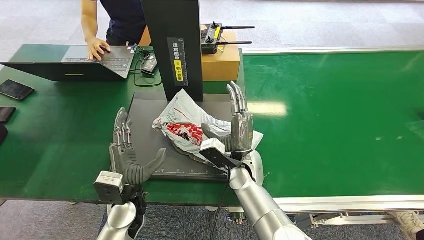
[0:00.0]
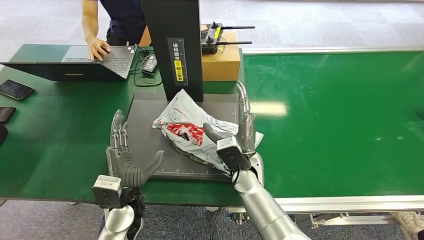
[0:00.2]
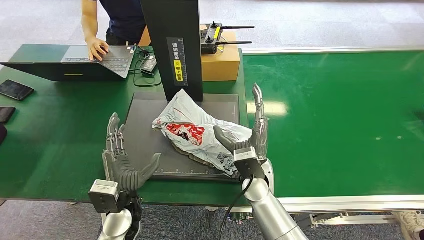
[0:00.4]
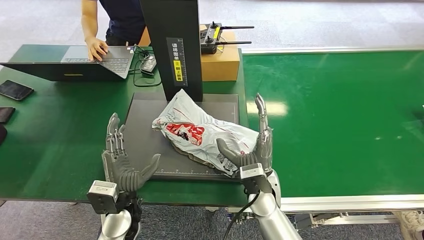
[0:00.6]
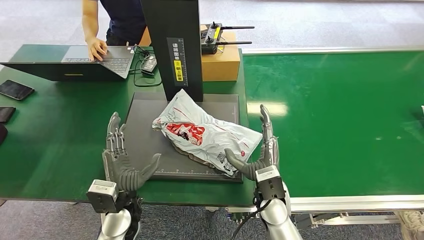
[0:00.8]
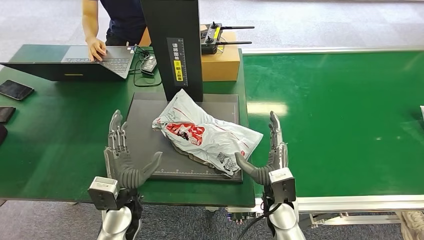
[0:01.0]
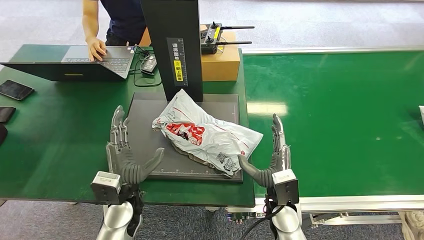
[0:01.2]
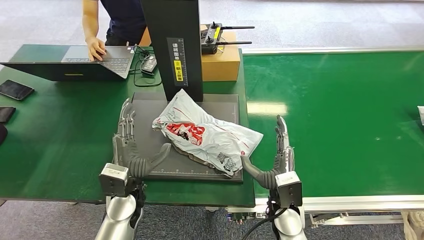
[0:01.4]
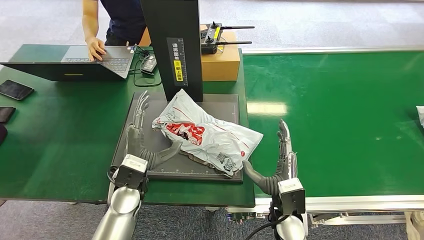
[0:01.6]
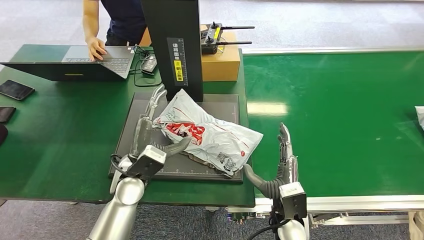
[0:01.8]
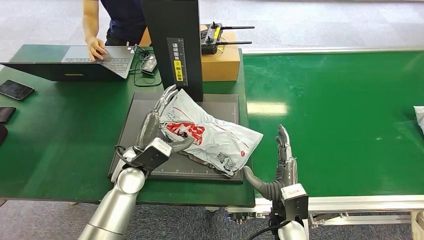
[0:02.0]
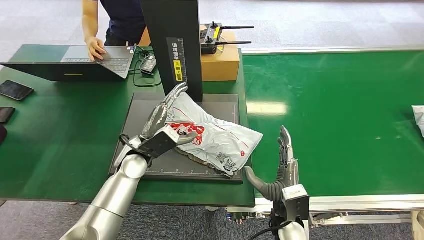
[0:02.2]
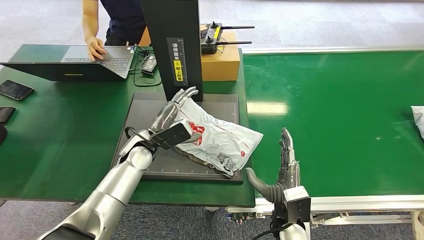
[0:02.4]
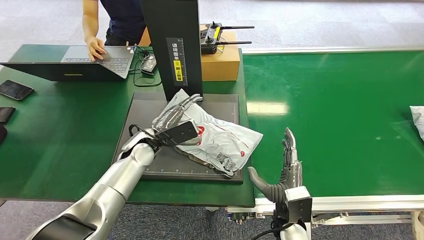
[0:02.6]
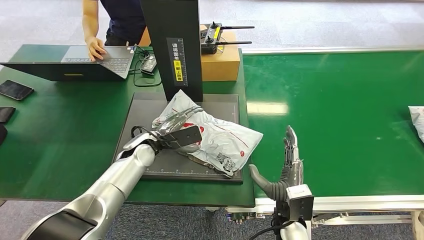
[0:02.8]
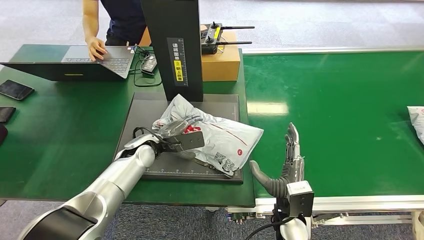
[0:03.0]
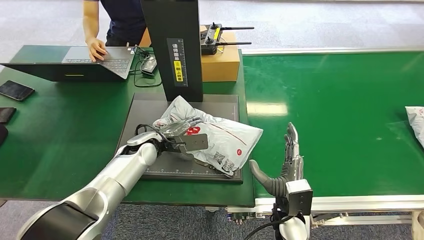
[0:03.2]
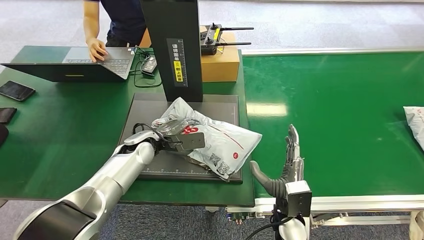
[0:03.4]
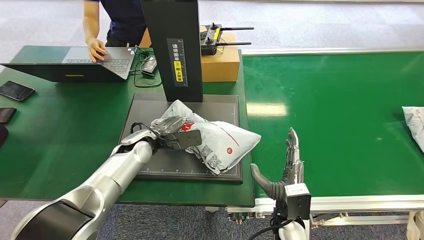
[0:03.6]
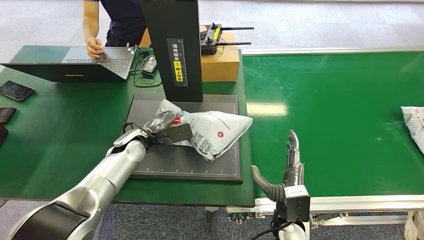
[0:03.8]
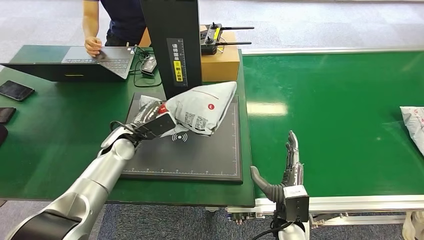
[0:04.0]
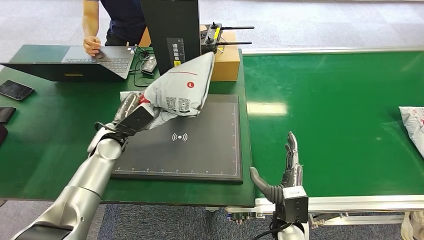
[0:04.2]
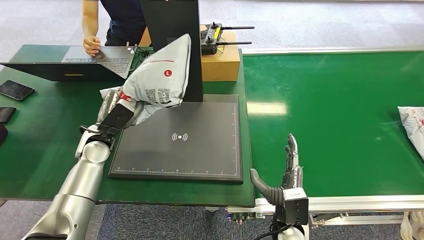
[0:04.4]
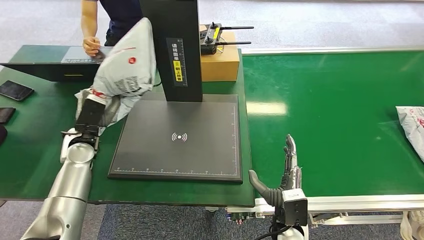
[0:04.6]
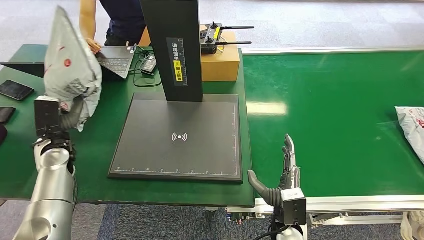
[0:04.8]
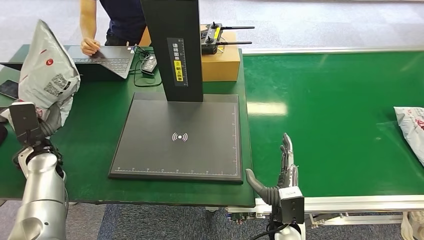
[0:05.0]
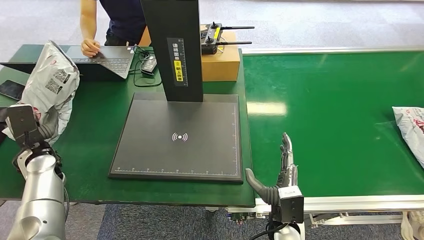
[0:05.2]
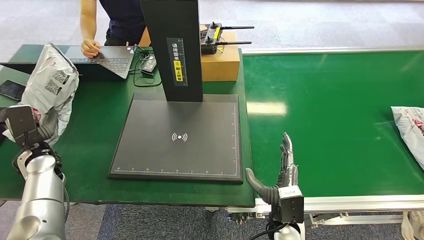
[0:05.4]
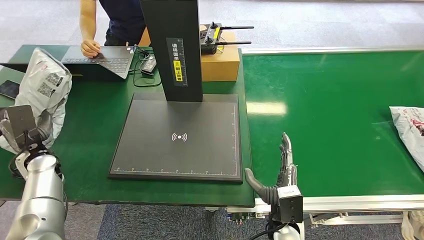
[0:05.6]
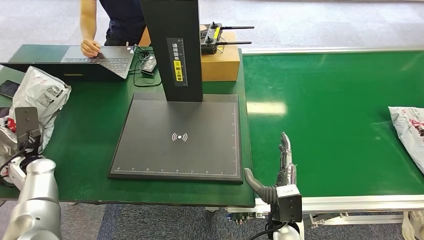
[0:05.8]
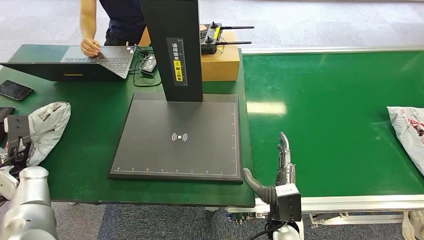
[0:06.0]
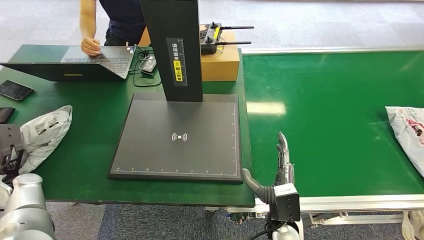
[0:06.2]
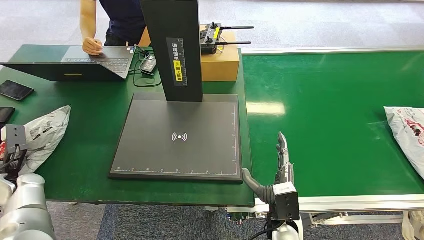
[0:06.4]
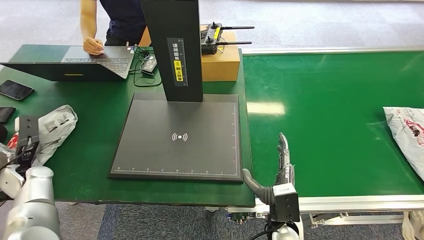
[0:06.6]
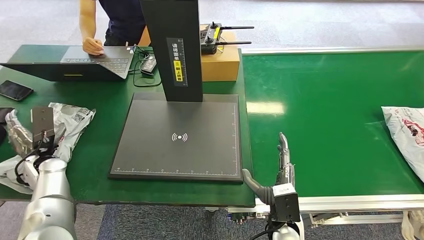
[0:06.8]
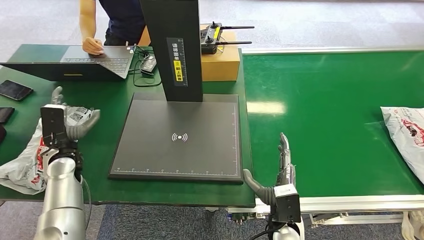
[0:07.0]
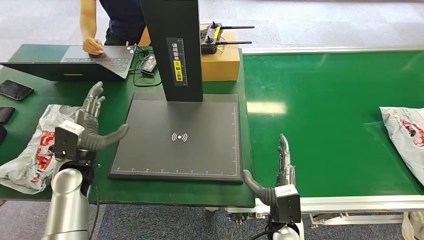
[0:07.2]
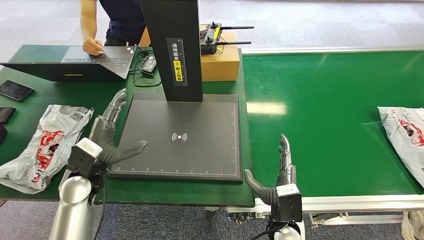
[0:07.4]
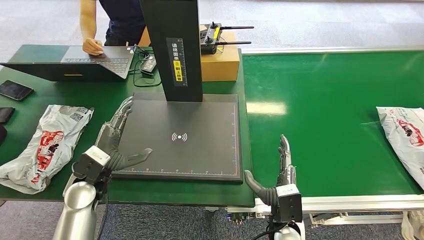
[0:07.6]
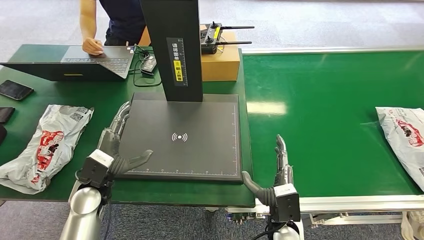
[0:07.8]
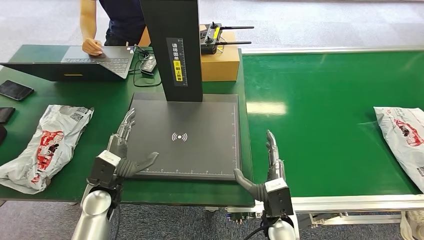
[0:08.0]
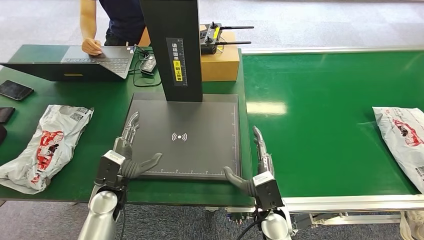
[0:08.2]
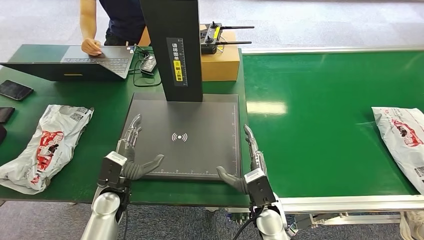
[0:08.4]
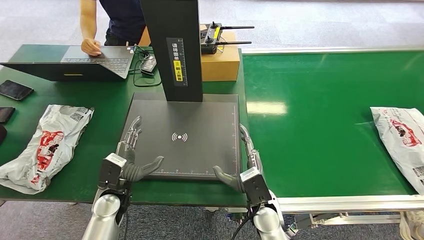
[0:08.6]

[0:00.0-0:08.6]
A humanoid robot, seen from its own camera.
Step, 0:00.8 to 0:04.4: Pick up the package from the inbound machine.
Step, 0:04.6 to 0:08.6: Place the package into the parcel locker.
0:00.0 to 0:01.4: The right hand travels backward and to the right by about 15 cm.
0:01.4 to 0:02.8: The left hand shifts some 10 cm forward.
0:04.4 to 0:05.8: The left hand goes roughly 15 cm to the left.
0:05.8 to 0:07.2: The left hand shifts approximately 15 cm to the right.
0:07.2 to 0:08.6: The right hand changes place by about 5 cm. Meanwhile the left hand is displaced to the right, downward and backward by roughly 15 cm.
